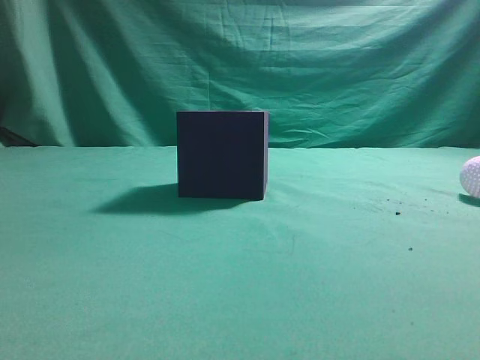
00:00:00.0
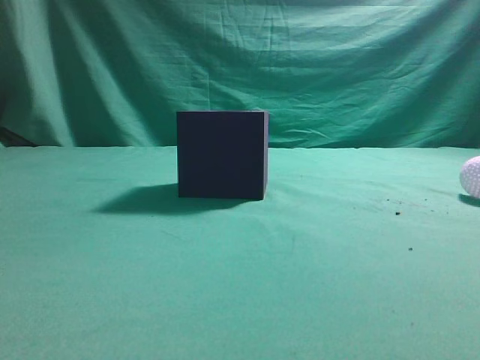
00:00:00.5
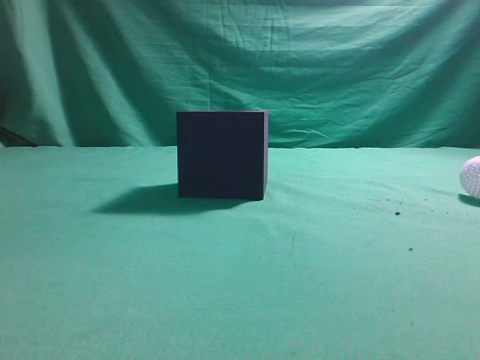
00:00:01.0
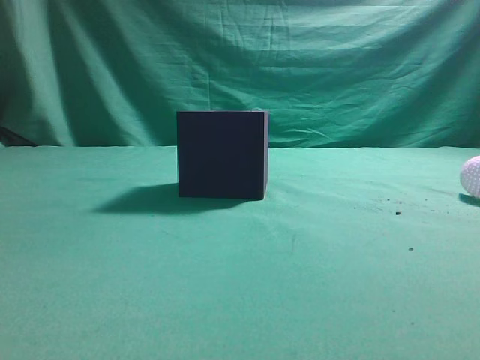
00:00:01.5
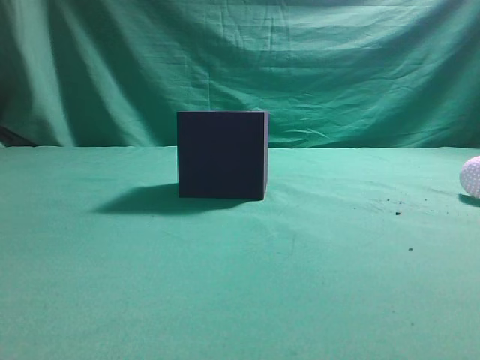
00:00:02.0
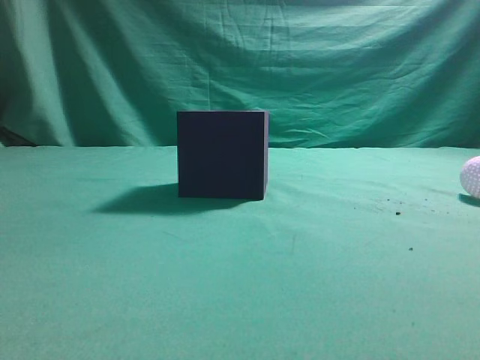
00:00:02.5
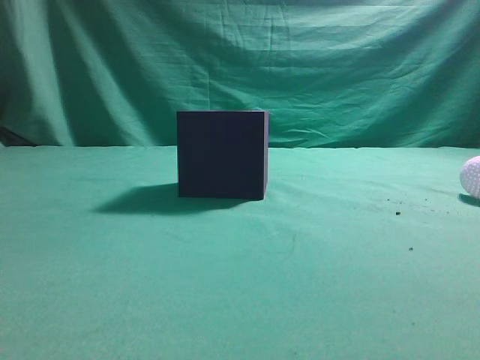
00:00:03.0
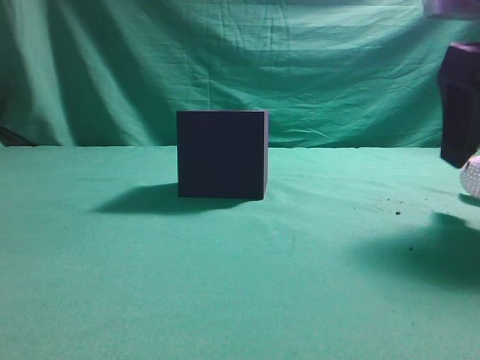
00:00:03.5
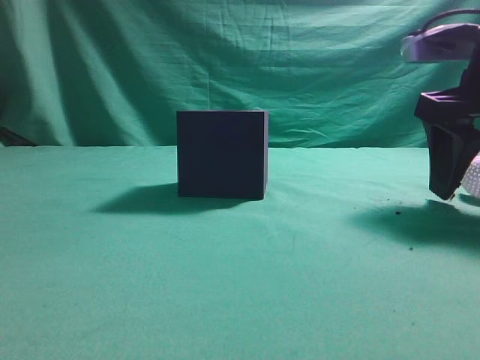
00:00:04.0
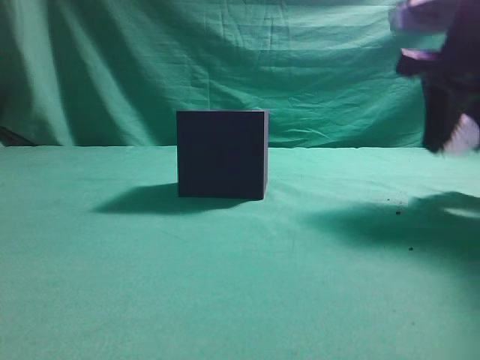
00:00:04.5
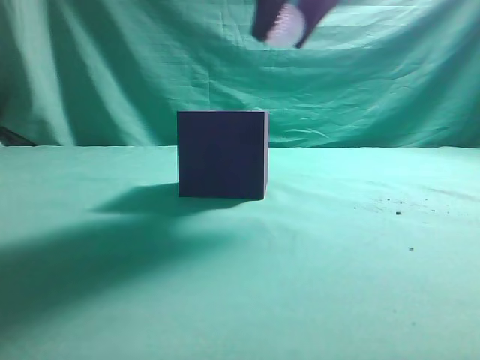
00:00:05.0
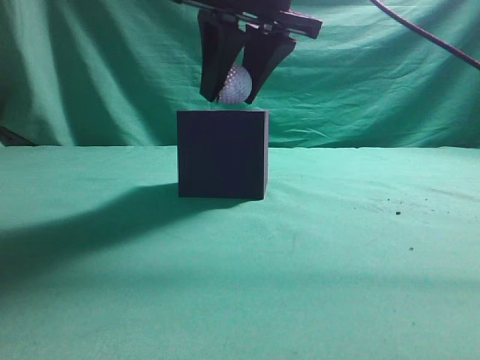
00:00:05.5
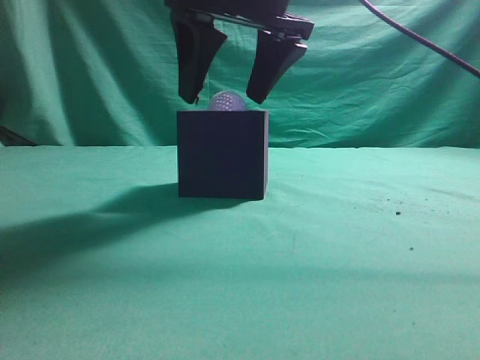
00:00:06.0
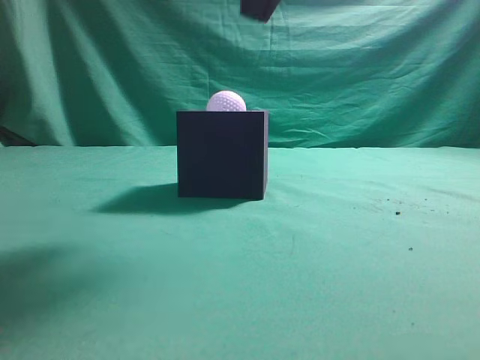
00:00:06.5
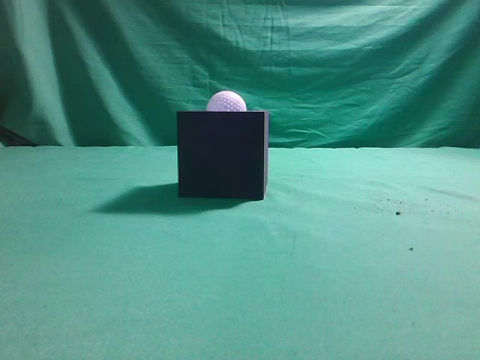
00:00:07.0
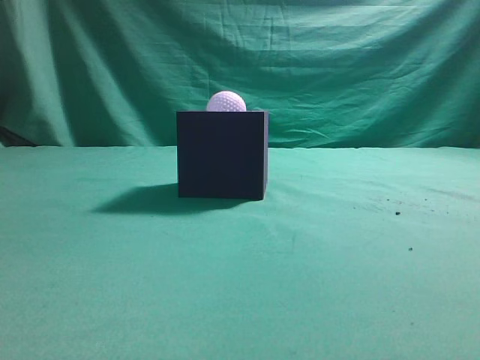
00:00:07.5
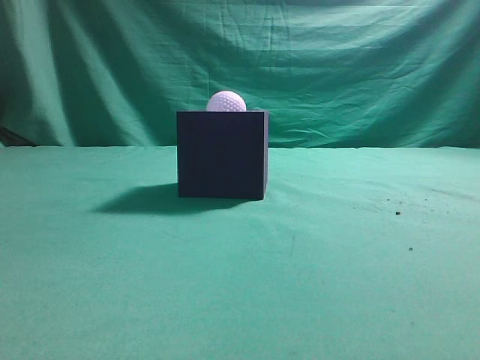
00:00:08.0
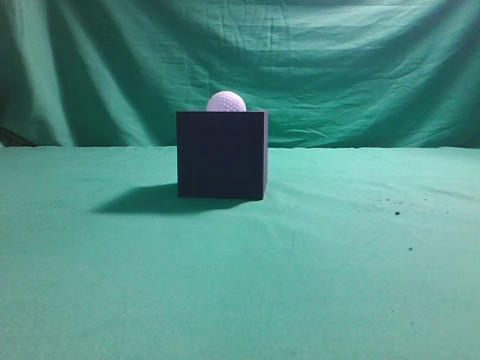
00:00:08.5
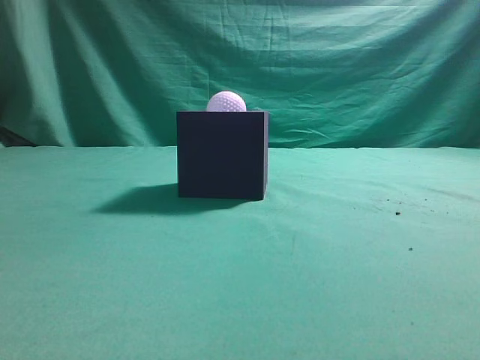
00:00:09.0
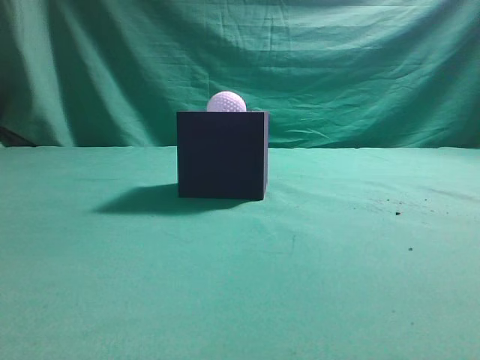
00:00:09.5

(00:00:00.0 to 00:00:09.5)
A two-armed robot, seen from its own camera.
Task of the whole recording: Pick up the ball and place it in the circular groove above the cube.
Step, 00:00:00.0 - 00:00:04.5: Grasp the sphere on the table.
Step, 00:00:05.0 - 00:00:06.0: Place the sphere into the sphere-shaped recess.
00:00:02.0 - 00:00:04.0: The right gripper is displaced forward and downward by some 25 cm, and opens its fingers.
00:00:04.0 - 00:00:05.5: The right gripper travels to the left and upward by roughly 20 cm, and closes up.
00:00:05.5 - 00:00:07.5: The right gripper shifts roughly 30 cm backward, to the right and upward, and closes up.
